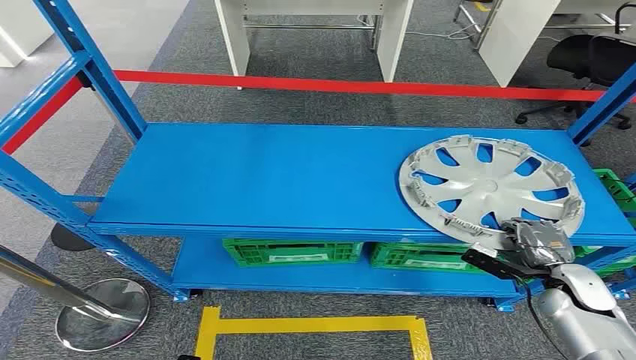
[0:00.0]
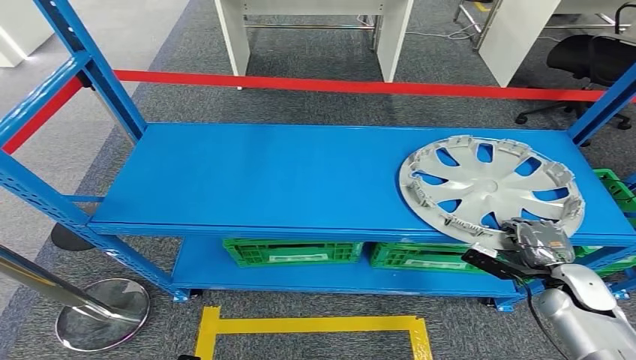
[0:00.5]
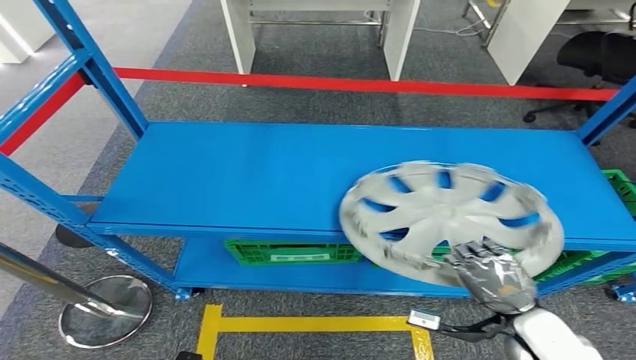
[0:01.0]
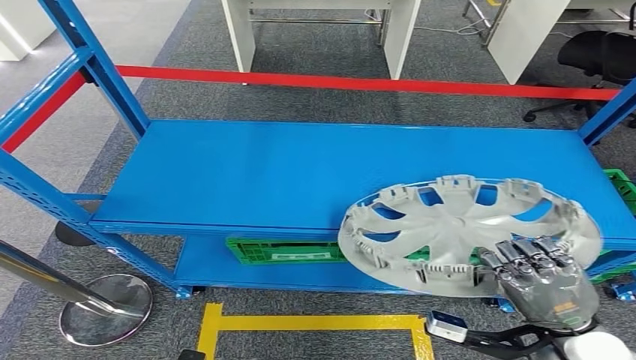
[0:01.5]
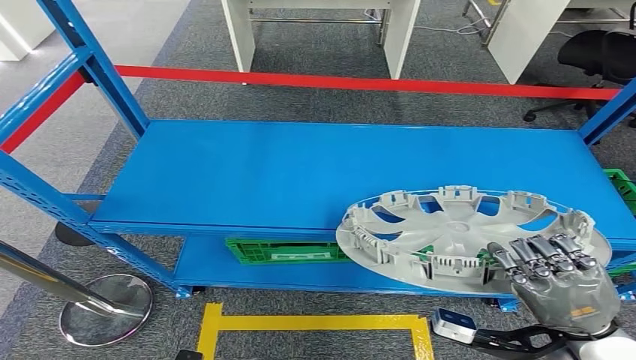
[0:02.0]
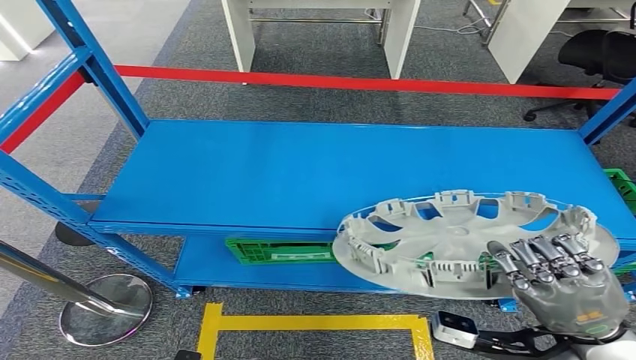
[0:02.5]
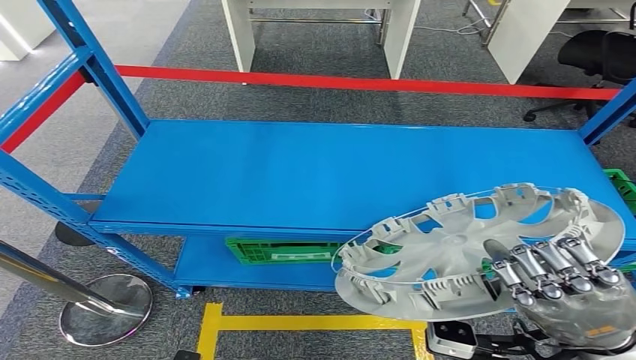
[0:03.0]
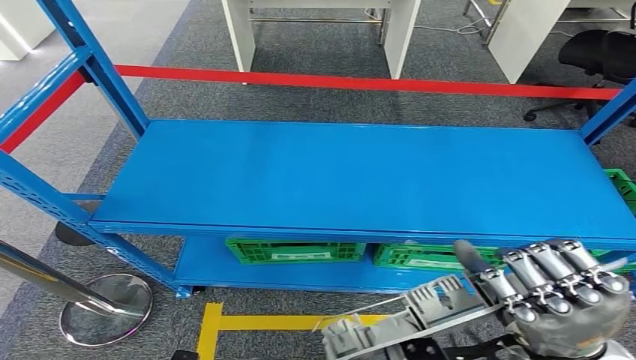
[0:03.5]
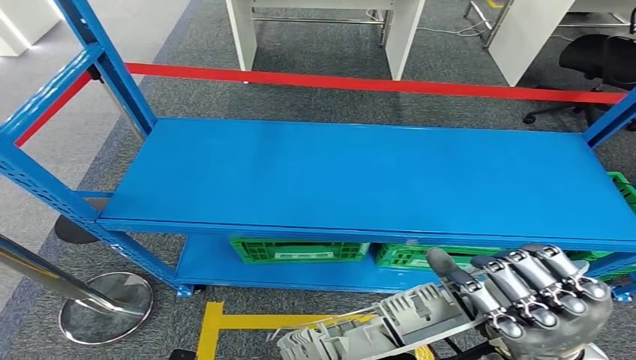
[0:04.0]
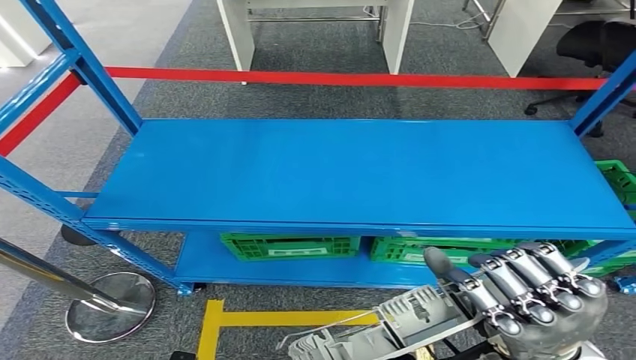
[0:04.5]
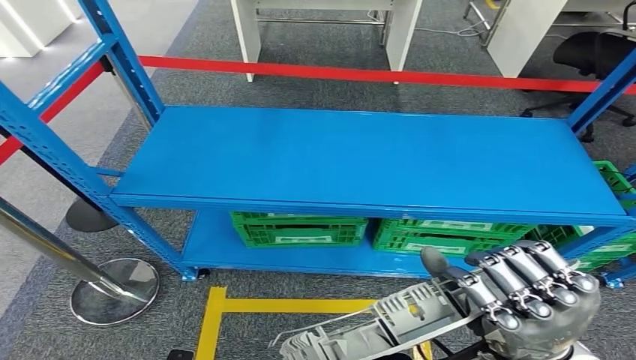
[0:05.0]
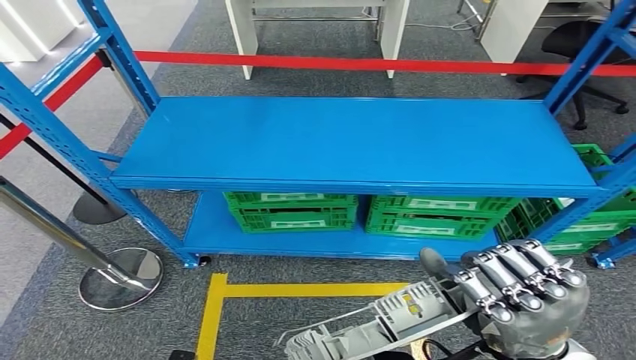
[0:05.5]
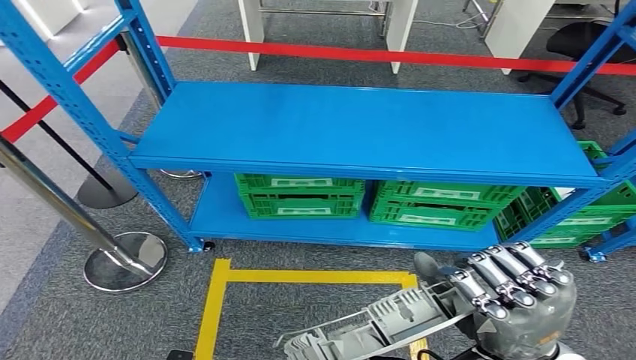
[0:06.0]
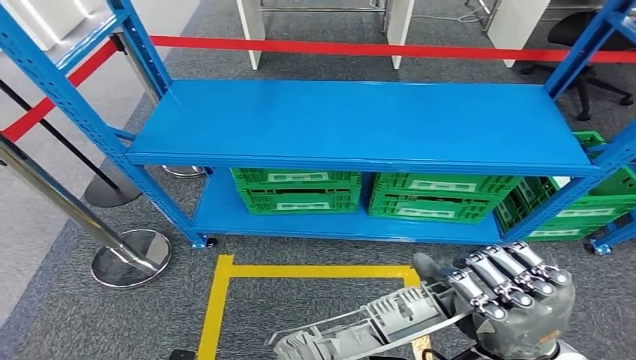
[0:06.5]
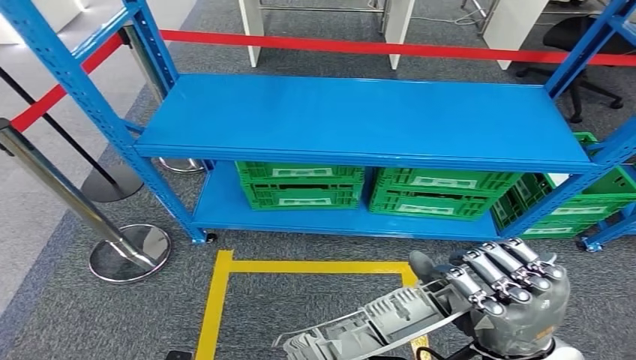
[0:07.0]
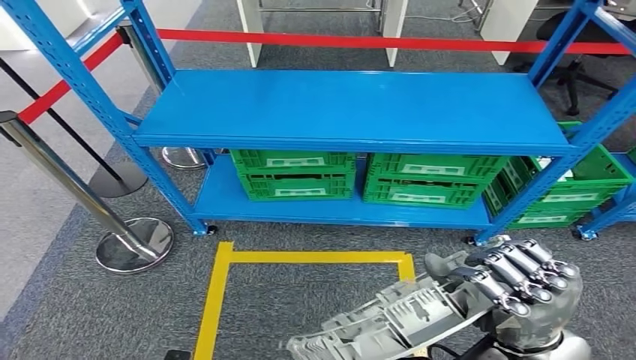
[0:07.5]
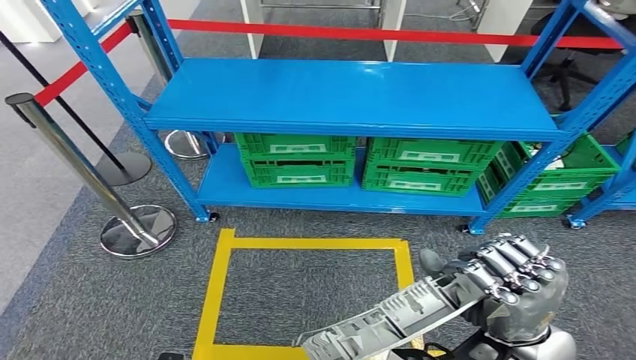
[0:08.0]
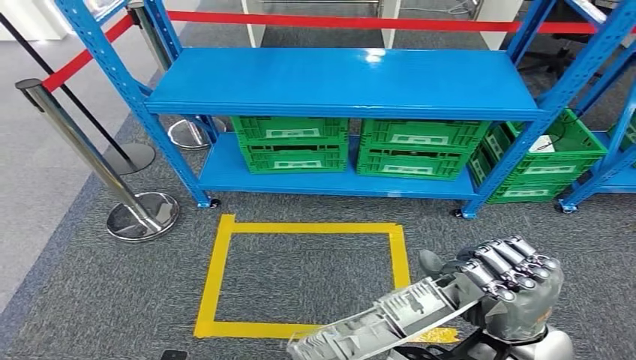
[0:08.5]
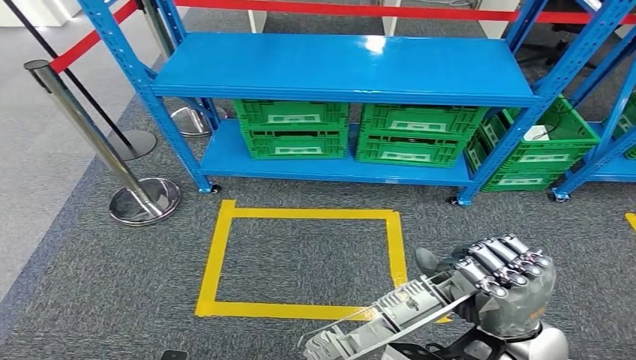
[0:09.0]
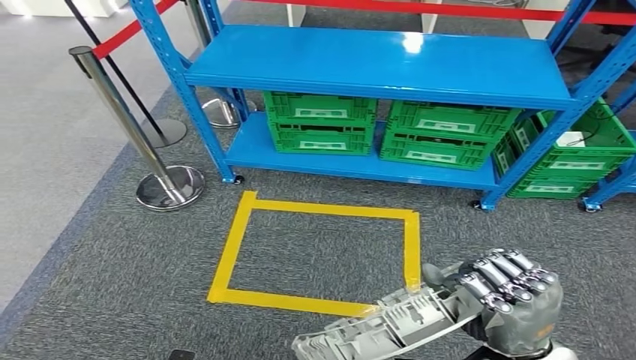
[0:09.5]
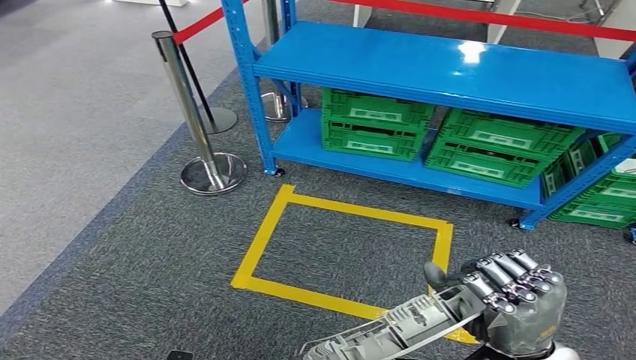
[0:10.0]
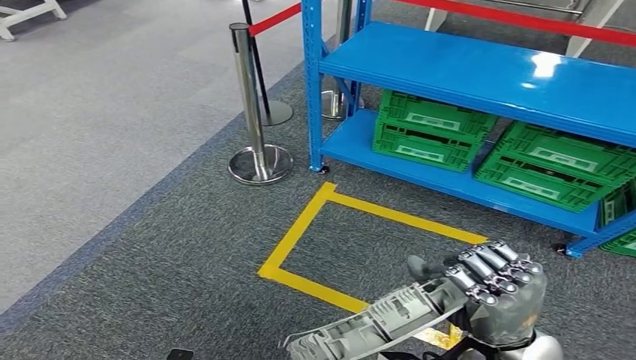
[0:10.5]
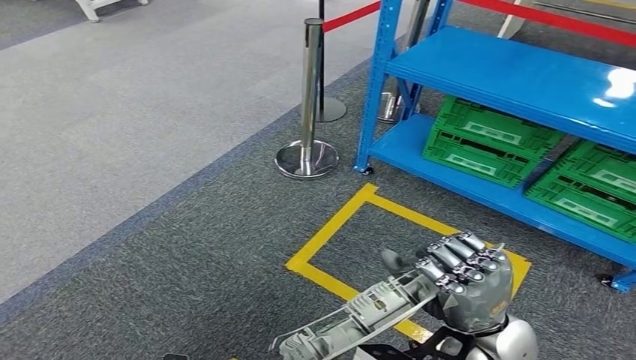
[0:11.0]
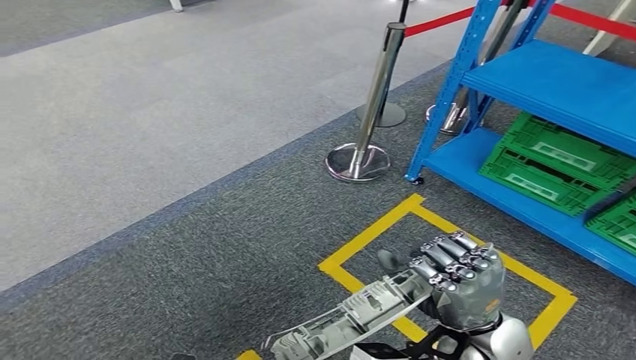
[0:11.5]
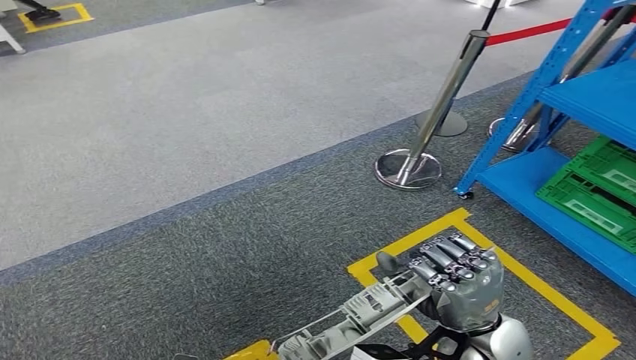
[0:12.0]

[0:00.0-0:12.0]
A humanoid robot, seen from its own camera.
Step, 0:00.0 to 0:02.5: Pick up the small parts from the shelf.

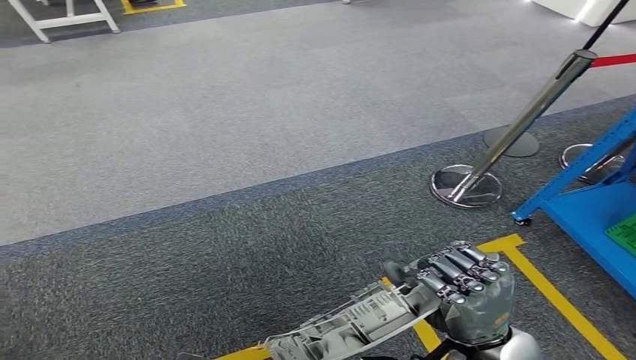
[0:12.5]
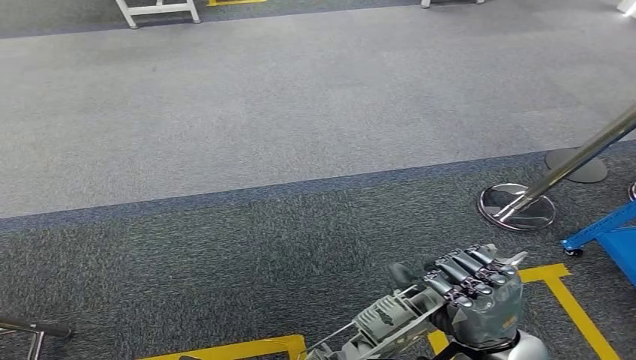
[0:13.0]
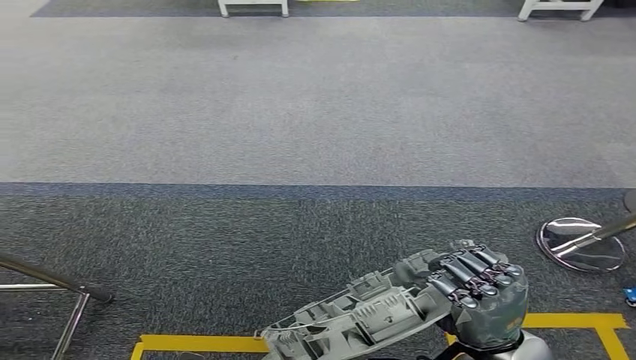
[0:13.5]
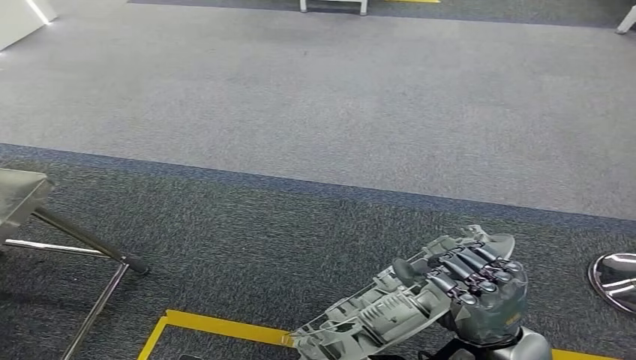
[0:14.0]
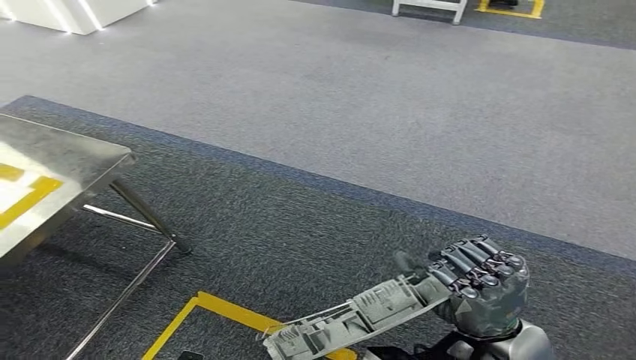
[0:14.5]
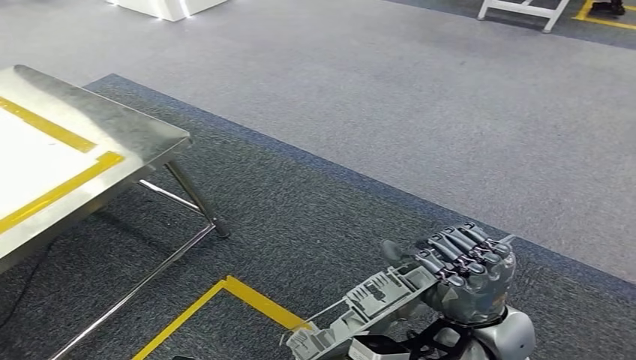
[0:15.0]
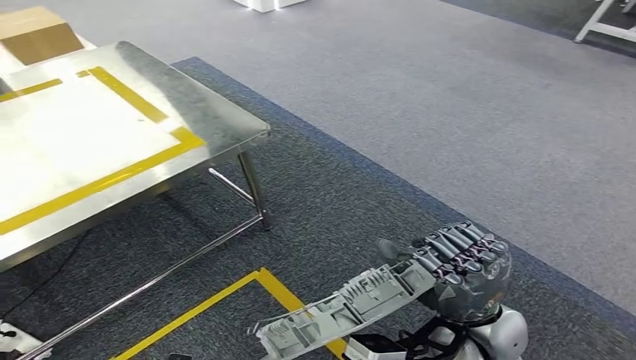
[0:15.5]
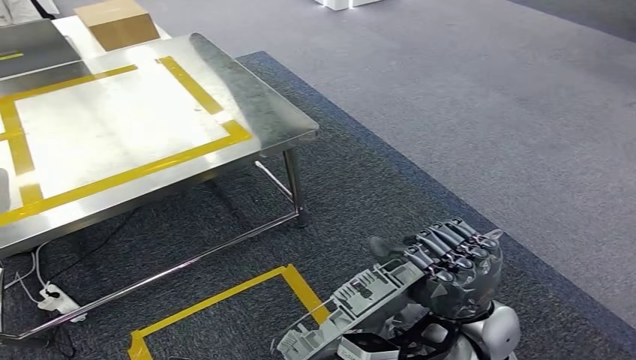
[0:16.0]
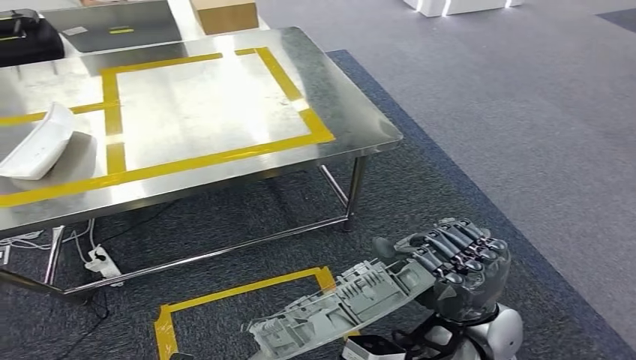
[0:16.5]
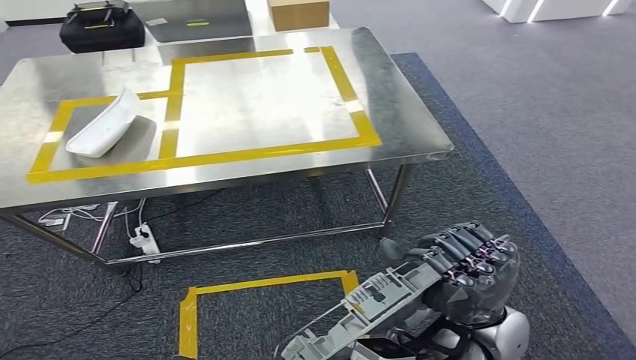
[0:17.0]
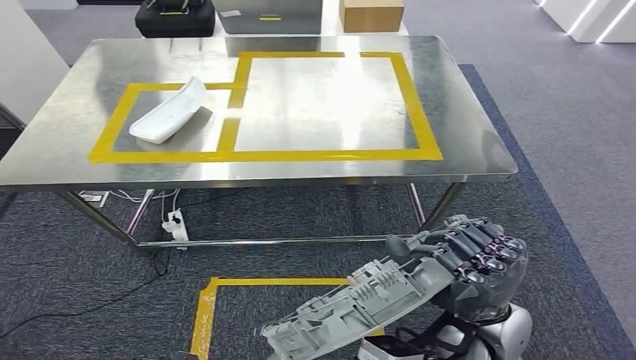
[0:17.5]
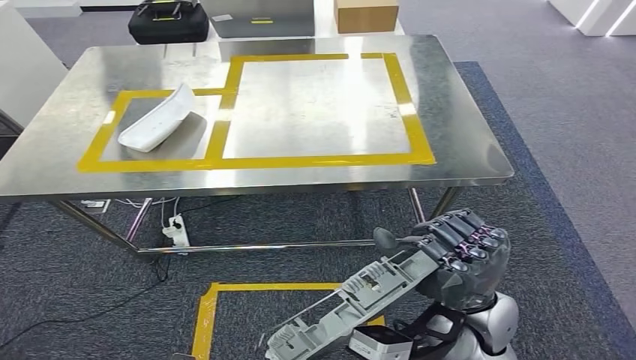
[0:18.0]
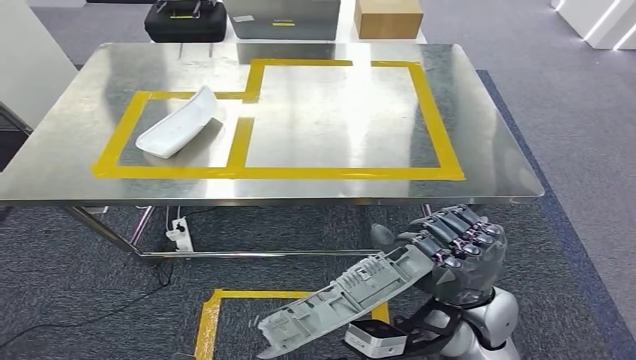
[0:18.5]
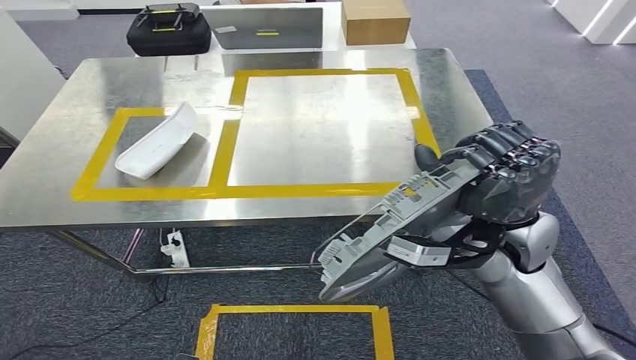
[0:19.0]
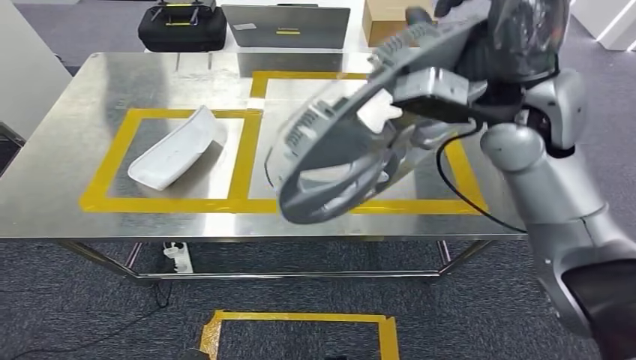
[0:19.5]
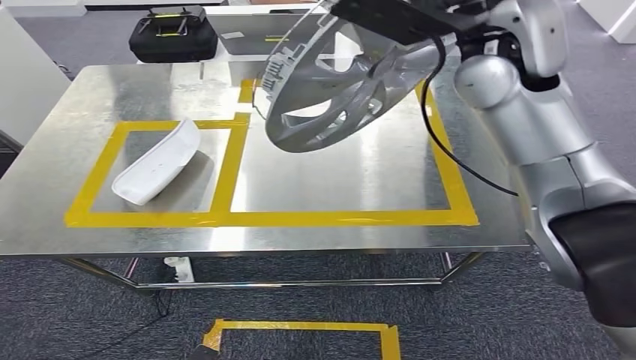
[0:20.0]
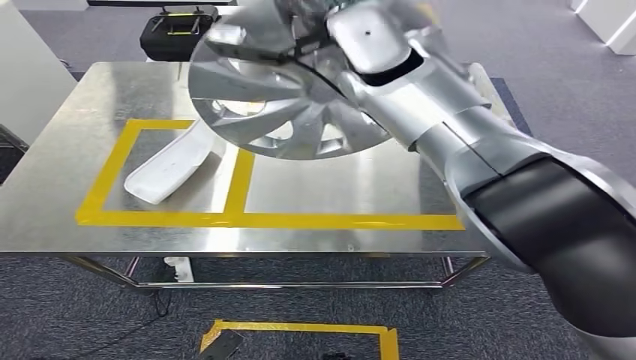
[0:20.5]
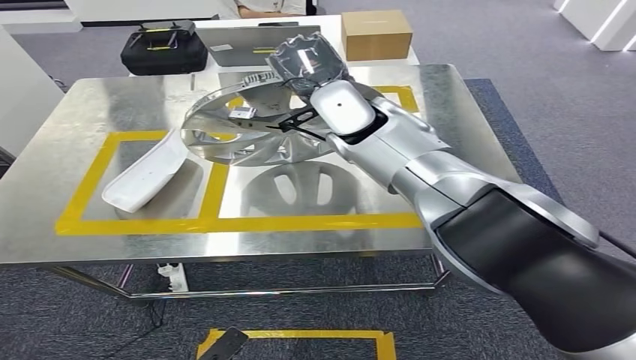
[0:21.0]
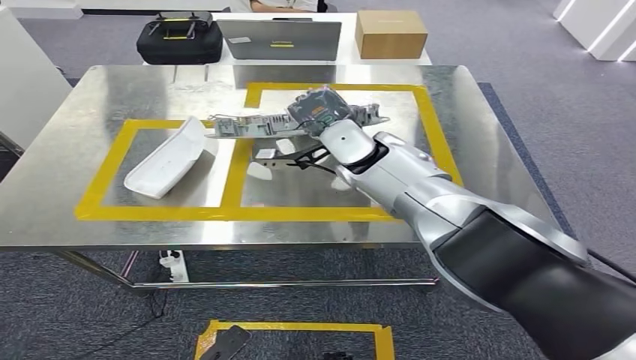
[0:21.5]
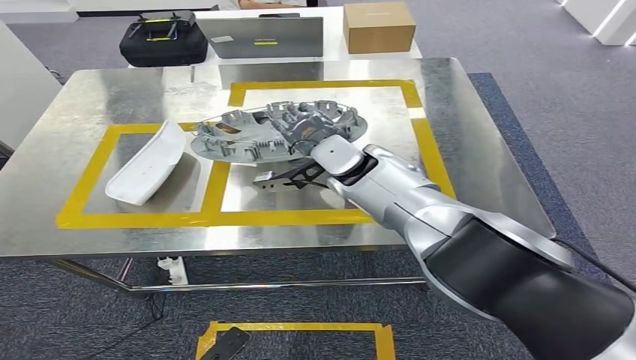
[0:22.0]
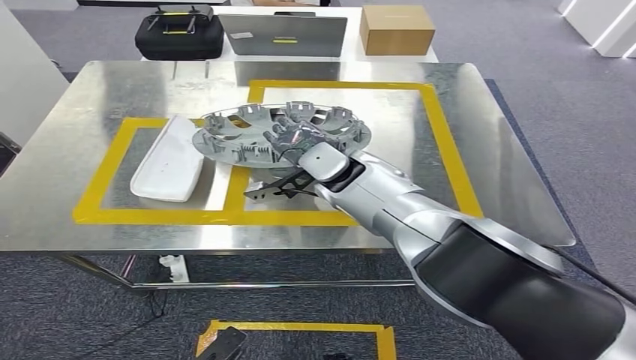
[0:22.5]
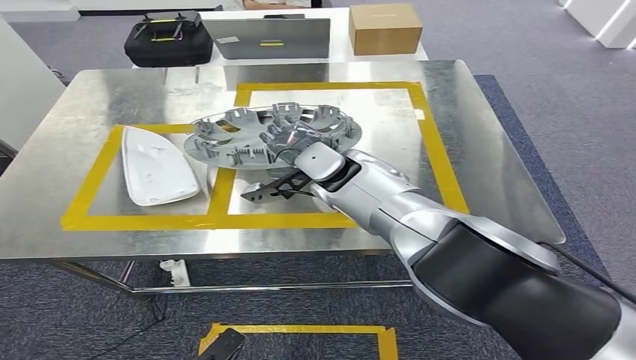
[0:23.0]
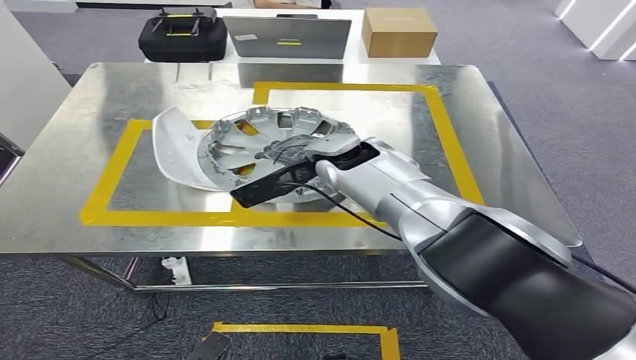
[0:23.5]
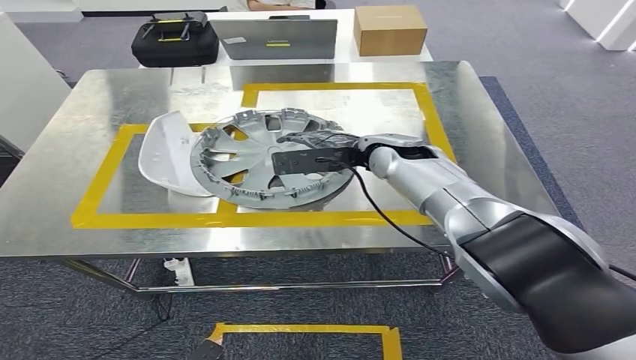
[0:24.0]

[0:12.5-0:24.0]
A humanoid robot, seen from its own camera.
Step, 0:12.5 to 0:18.0: Move the small parts to the workbench.
